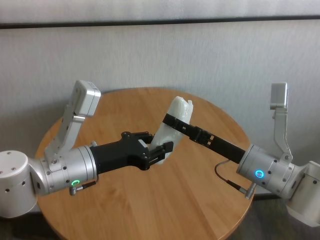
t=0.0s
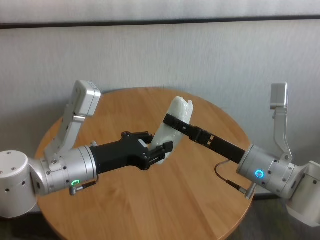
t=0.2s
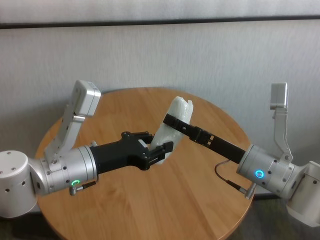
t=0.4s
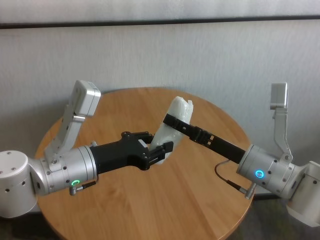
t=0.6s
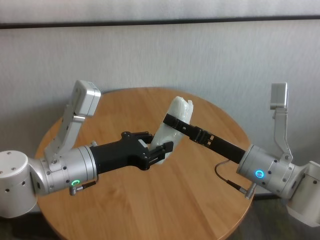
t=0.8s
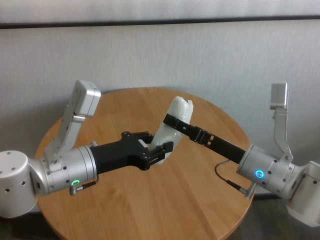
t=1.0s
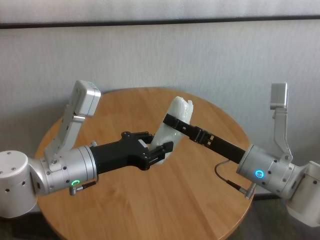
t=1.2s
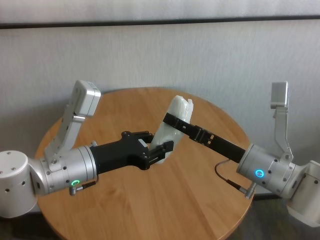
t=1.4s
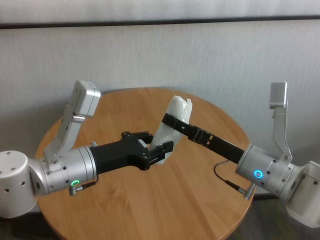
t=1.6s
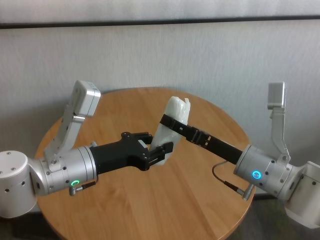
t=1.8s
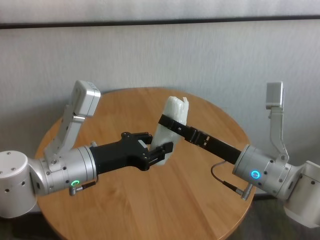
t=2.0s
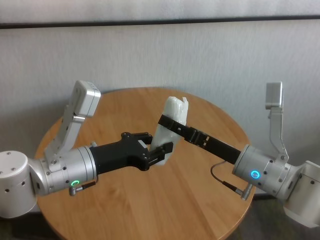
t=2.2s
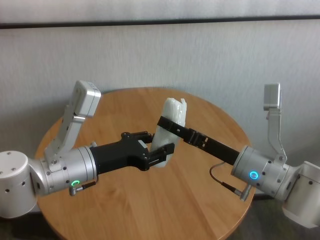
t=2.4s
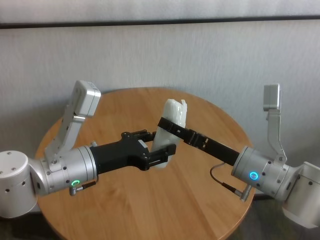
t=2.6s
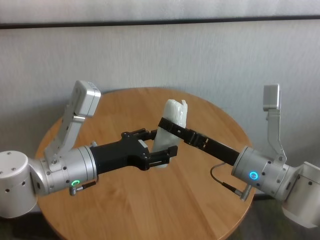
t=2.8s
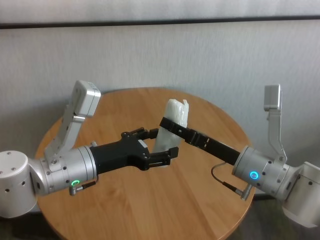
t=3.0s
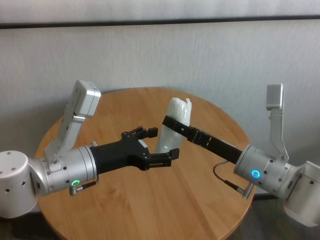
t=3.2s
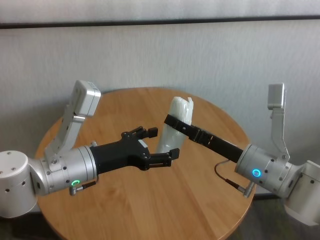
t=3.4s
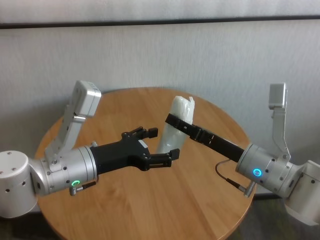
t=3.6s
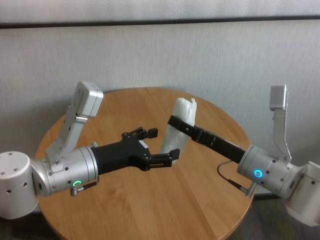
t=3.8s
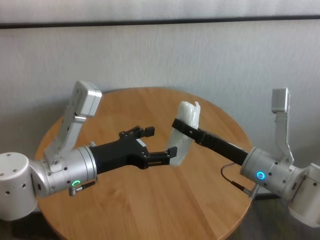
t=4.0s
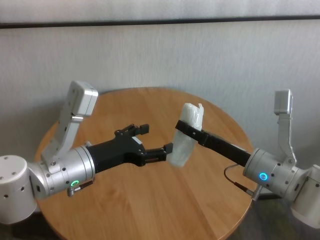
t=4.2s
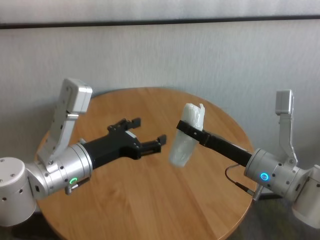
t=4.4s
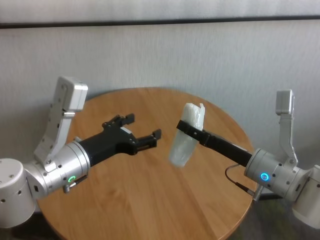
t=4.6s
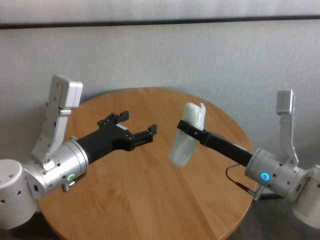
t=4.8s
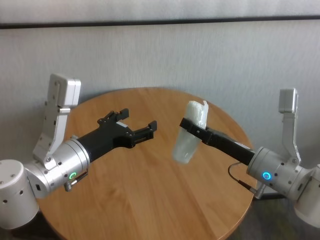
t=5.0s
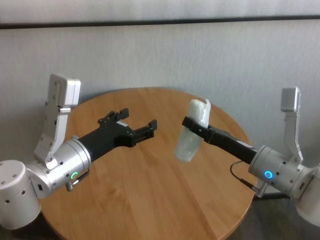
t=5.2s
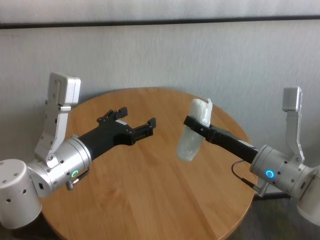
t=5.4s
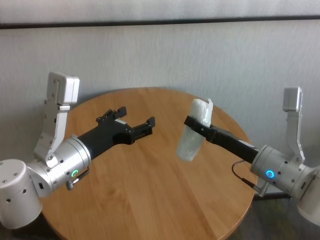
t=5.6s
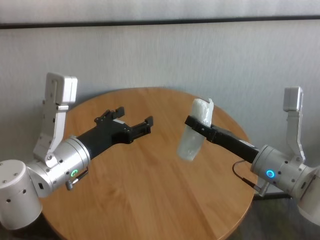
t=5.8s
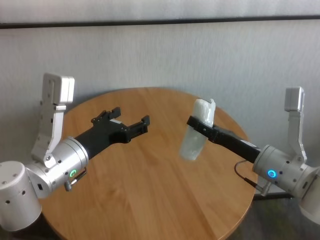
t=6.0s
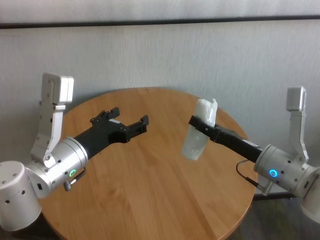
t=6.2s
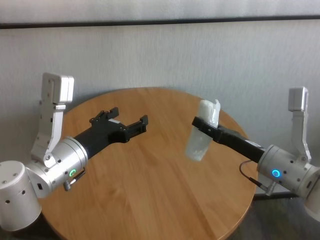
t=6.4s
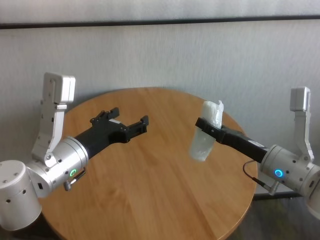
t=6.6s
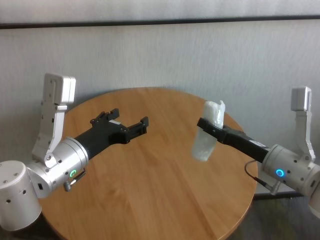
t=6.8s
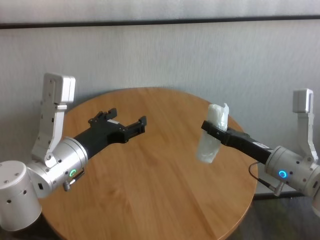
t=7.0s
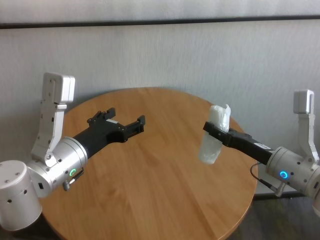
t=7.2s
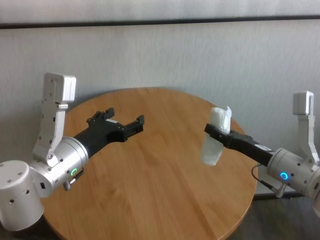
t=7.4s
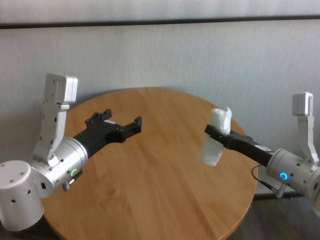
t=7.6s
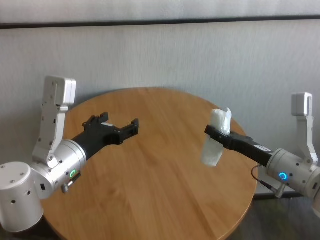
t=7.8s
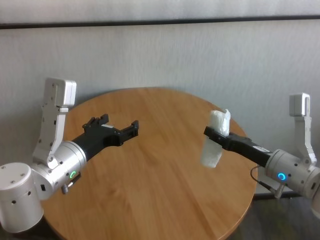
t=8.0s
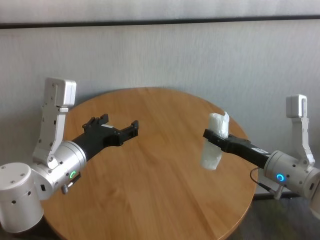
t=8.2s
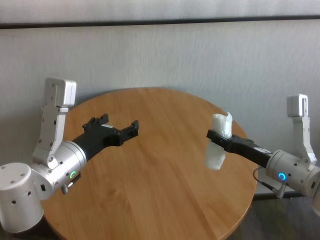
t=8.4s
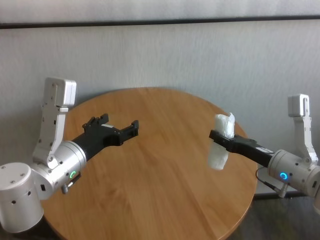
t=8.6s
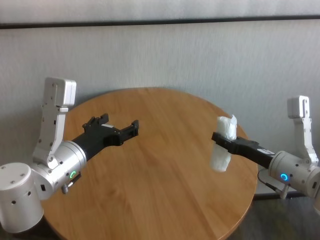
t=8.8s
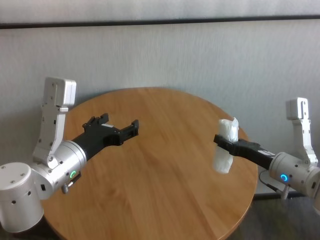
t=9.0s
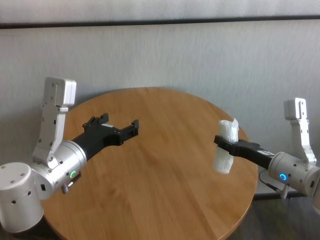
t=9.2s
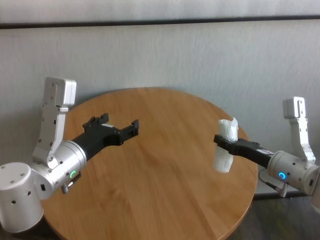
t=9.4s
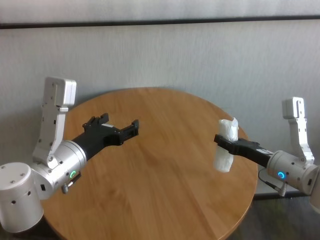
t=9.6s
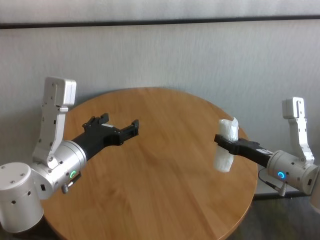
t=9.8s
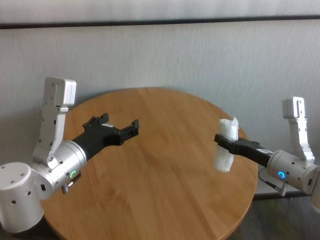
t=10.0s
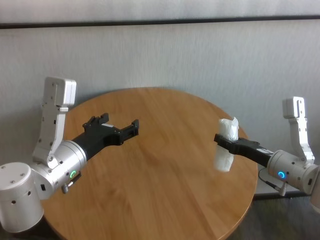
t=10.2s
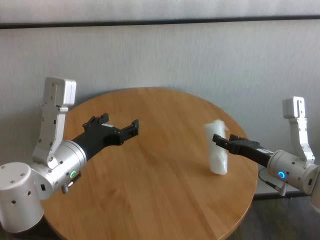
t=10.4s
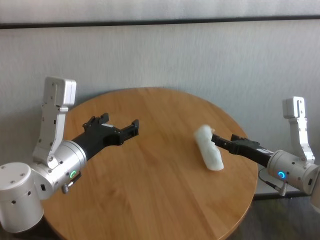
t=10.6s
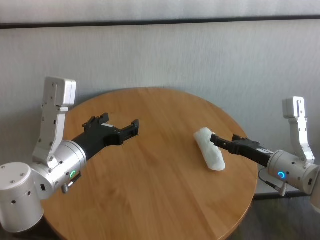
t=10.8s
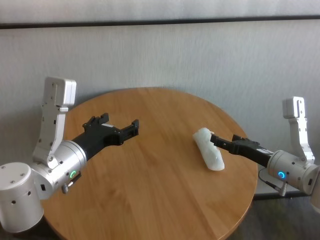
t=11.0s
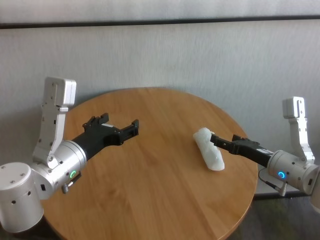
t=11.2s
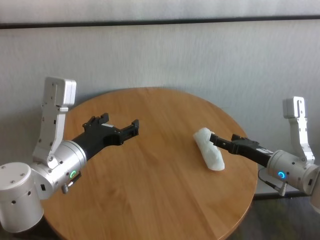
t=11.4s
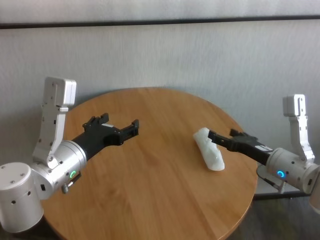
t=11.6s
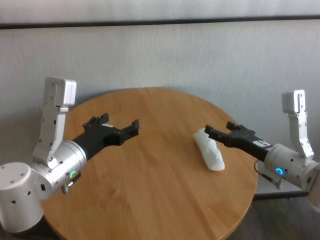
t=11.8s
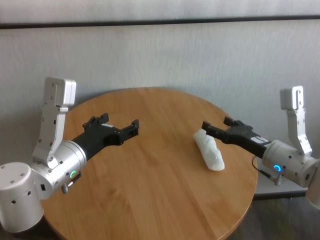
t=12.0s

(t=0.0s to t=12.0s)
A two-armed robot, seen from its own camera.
Task of the whole recording: One hand took the sandbag from the other hand and placed it on the table.
Step, t=0.0s - t=3.8s: Pass the paper ball to the right gripper.
Step, t=4.2s - t=11.2s: Place the paper ball on the table with right gripper.

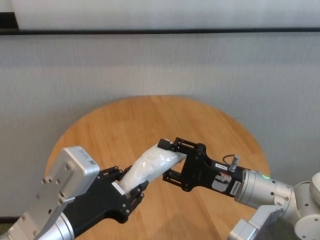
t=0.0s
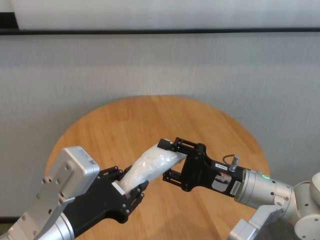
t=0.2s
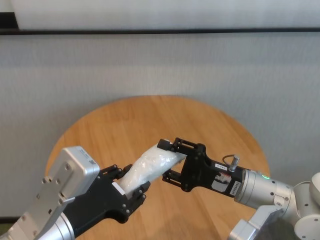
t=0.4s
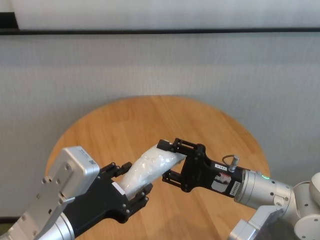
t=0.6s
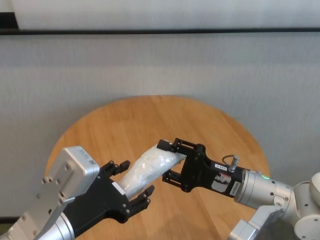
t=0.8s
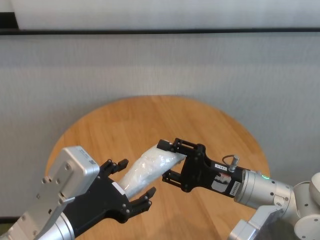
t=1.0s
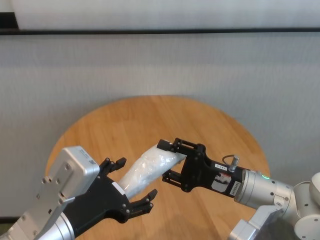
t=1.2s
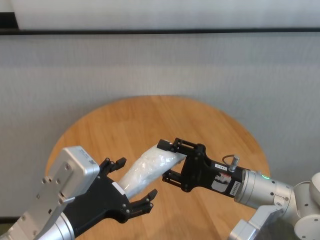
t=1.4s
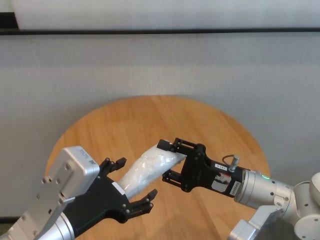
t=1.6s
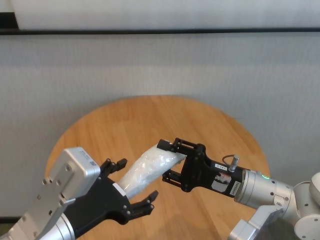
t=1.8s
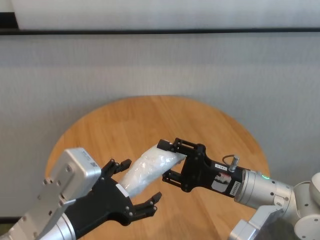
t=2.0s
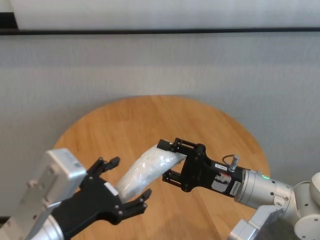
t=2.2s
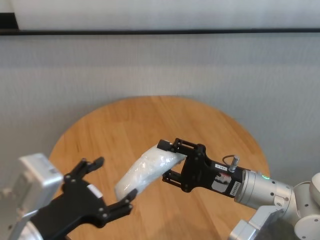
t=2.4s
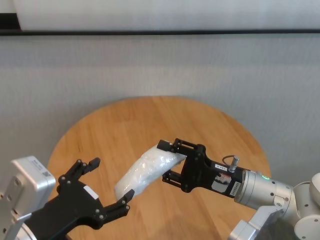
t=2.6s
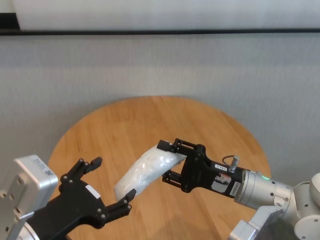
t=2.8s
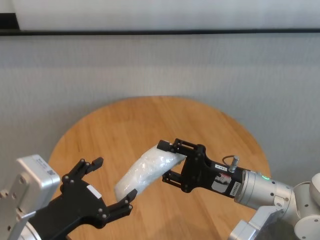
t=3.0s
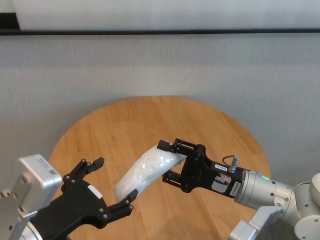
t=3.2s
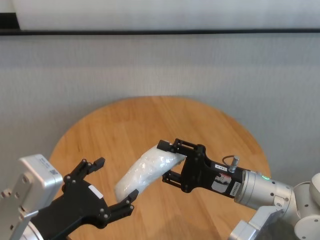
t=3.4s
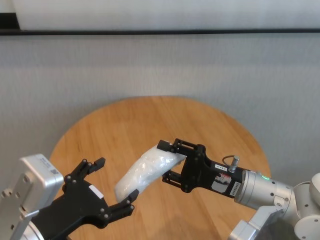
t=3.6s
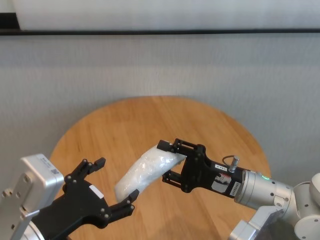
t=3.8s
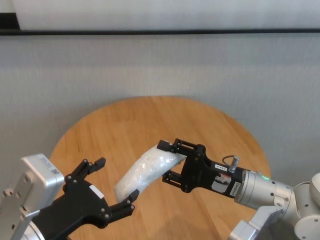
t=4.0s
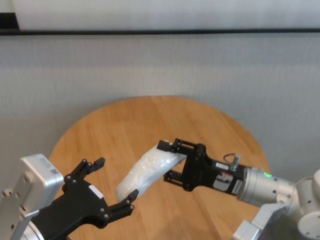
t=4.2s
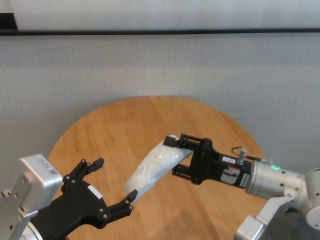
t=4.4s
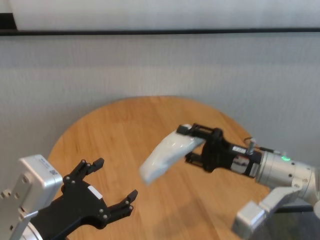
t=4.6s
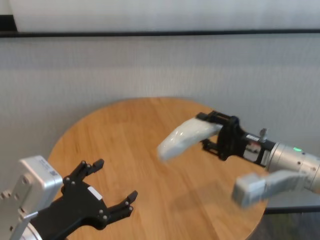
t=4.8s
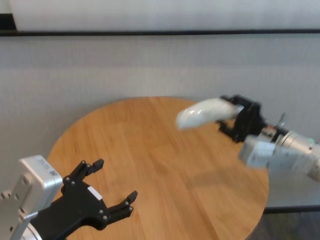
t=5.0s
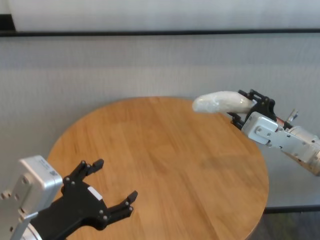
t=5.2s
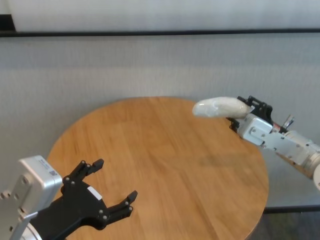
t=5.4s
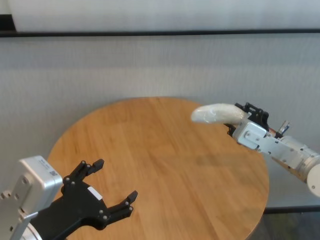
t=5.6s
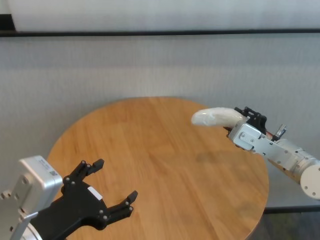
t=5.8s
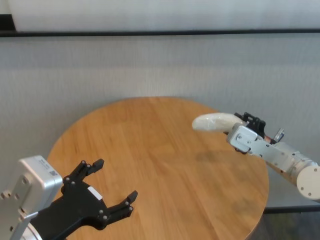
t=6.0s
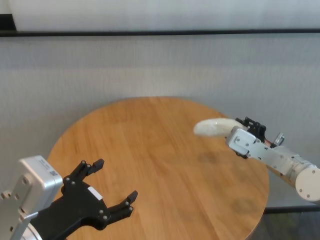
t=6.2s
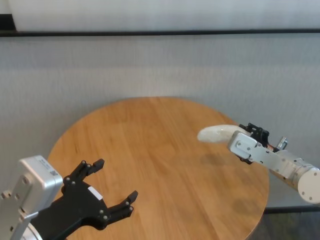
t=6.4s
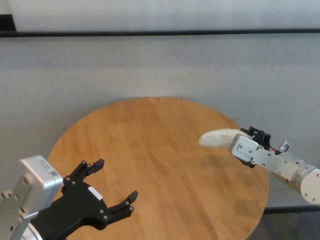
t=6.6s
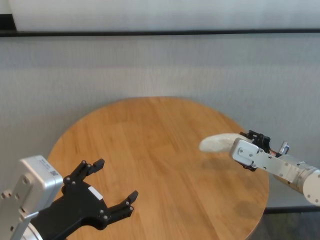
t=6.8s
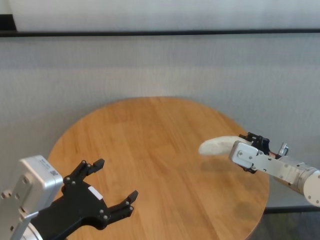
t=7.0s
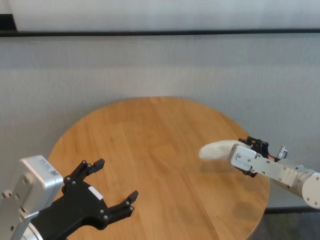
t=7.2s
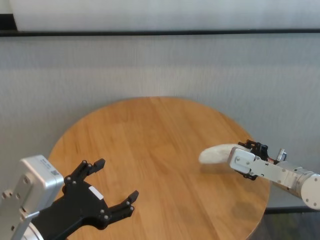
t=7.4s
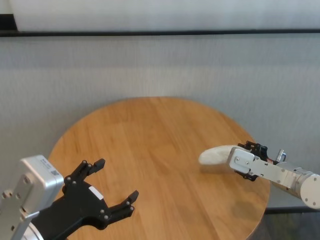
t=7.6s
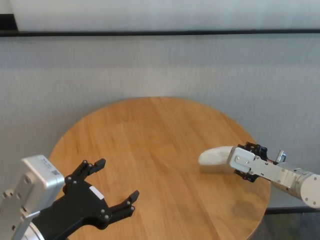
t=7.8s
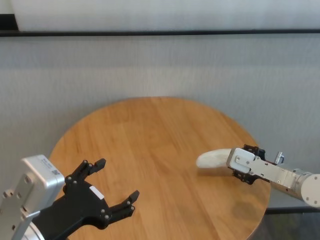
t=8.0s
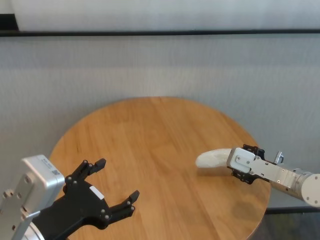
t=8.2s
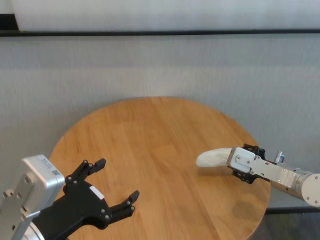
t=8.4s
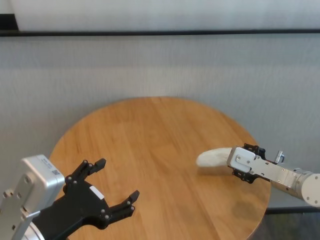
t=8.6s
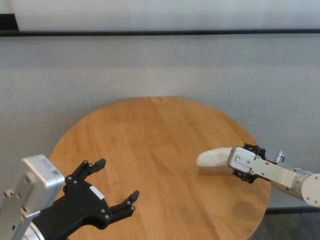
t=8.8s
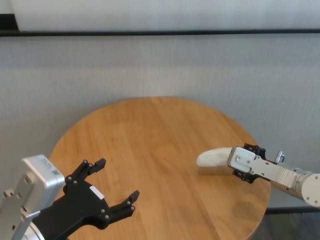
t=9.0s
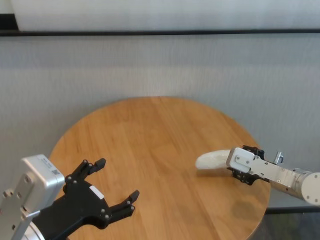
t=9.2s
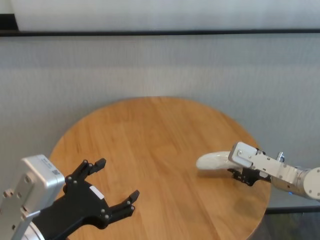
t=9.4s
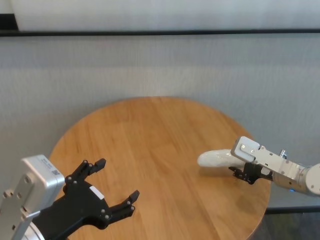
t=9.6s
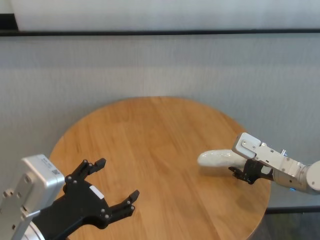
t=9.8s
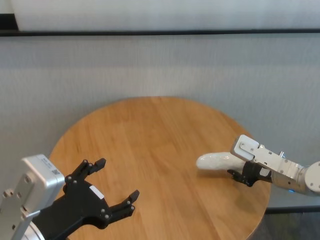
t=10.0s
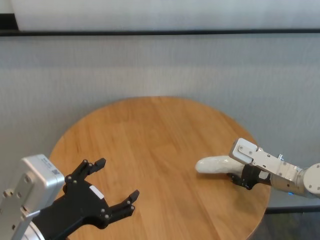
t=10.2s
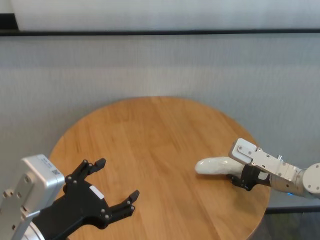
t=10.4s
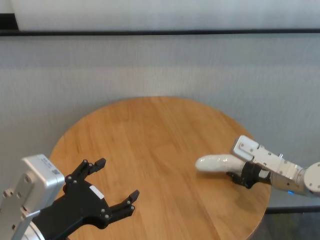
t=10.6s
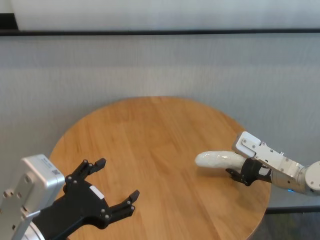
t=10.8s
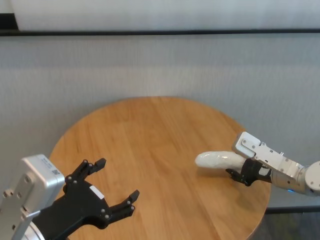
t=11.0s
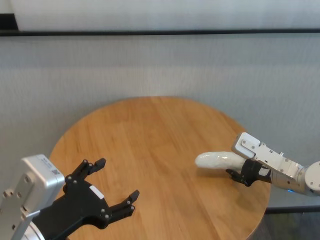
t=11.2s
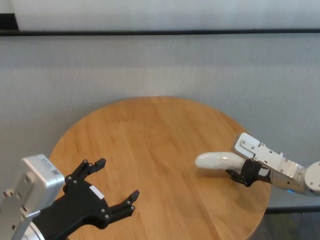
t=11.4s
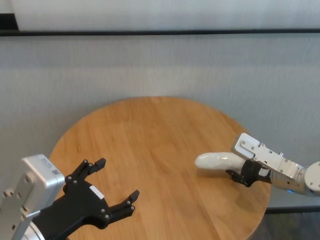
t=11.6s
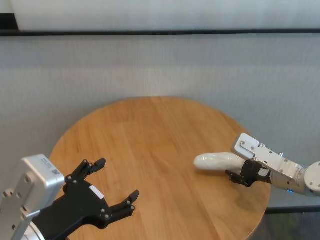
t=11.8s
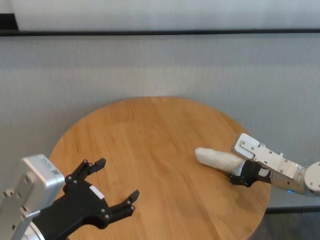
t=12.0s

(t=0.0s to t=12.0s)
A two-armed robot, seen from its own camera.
Task of the whole recording: One hand took the sandbag from the other hand and placed it on the table.
Step, t=0.0s - t=2.0s: Pass the paper ball to the right gripper.
